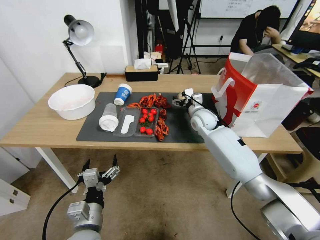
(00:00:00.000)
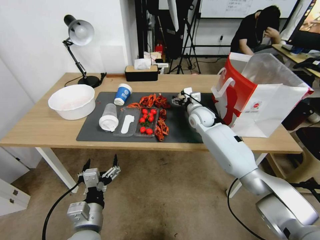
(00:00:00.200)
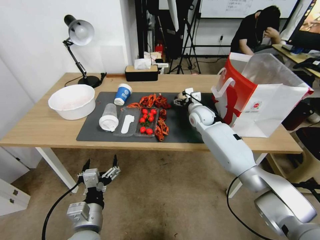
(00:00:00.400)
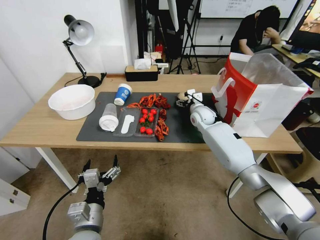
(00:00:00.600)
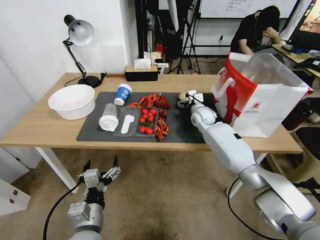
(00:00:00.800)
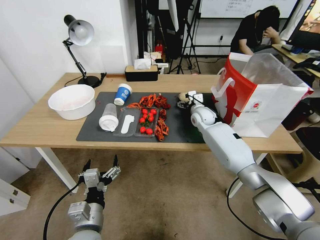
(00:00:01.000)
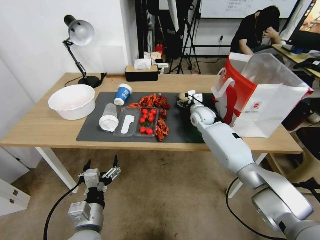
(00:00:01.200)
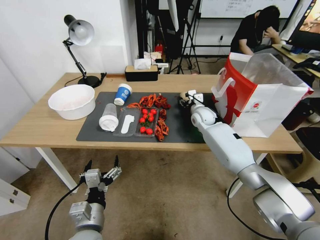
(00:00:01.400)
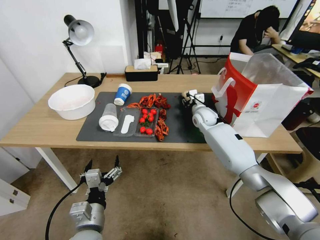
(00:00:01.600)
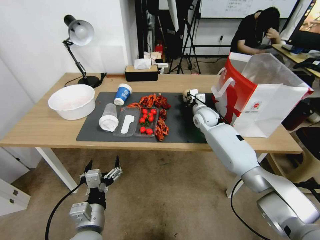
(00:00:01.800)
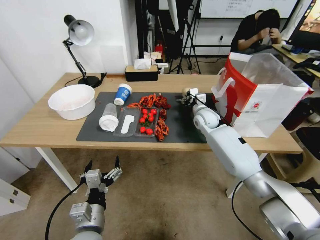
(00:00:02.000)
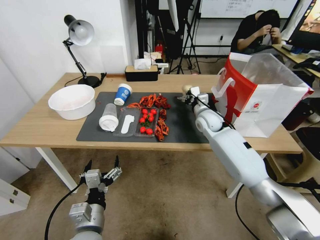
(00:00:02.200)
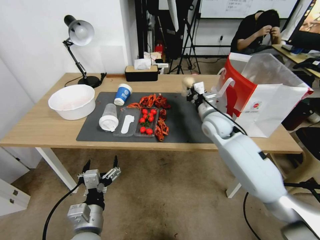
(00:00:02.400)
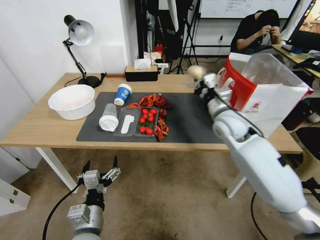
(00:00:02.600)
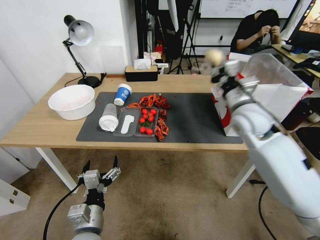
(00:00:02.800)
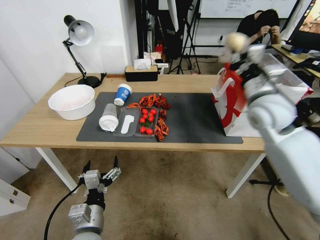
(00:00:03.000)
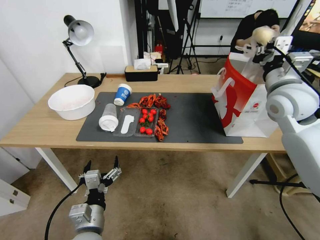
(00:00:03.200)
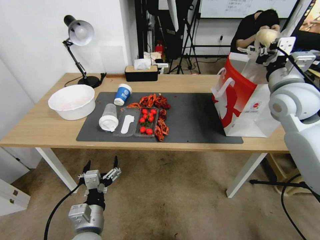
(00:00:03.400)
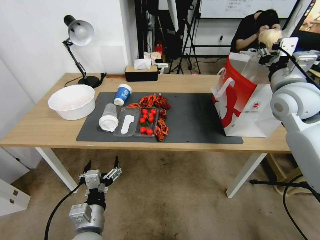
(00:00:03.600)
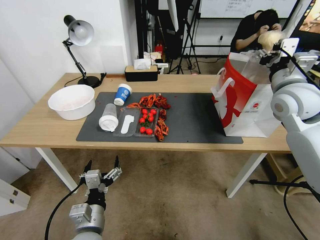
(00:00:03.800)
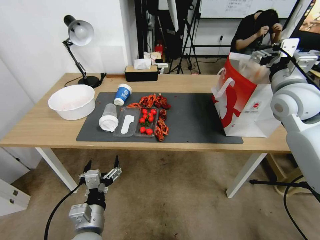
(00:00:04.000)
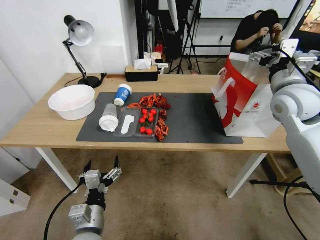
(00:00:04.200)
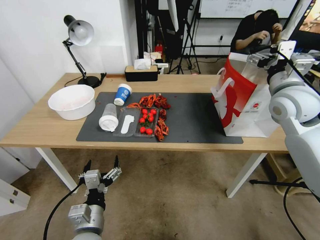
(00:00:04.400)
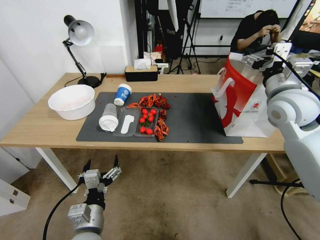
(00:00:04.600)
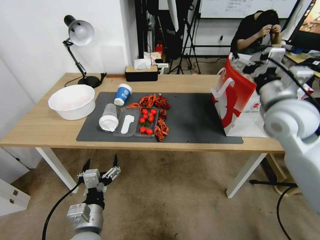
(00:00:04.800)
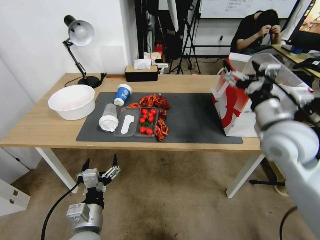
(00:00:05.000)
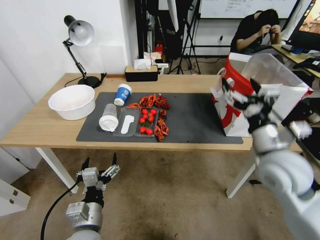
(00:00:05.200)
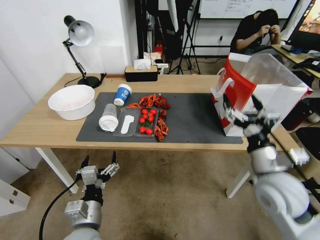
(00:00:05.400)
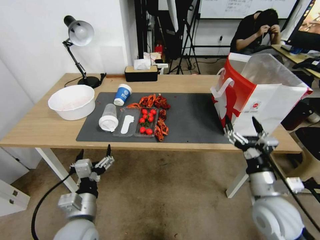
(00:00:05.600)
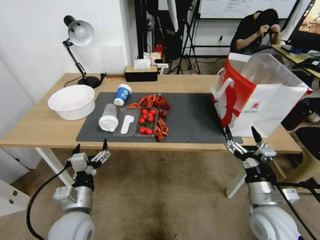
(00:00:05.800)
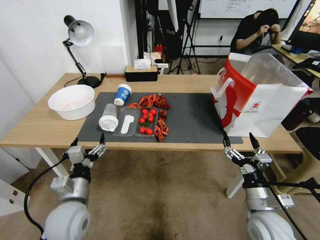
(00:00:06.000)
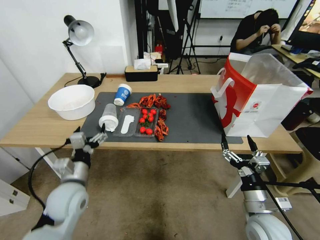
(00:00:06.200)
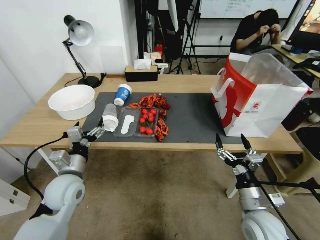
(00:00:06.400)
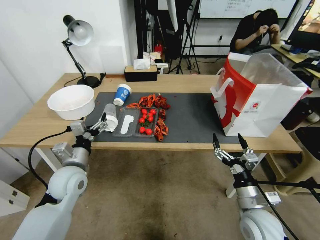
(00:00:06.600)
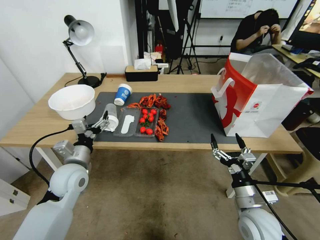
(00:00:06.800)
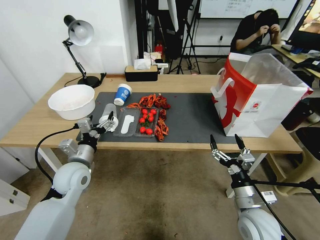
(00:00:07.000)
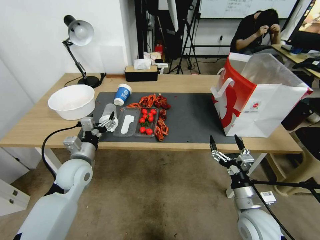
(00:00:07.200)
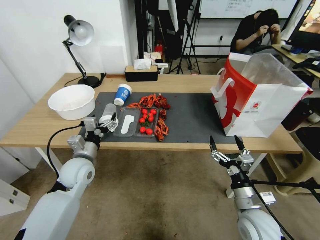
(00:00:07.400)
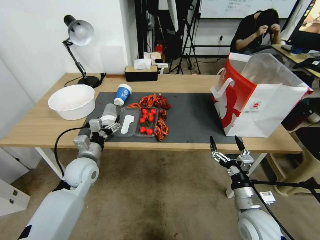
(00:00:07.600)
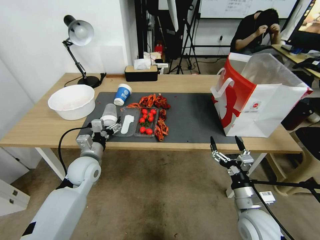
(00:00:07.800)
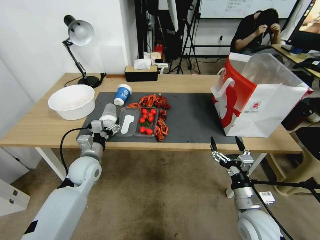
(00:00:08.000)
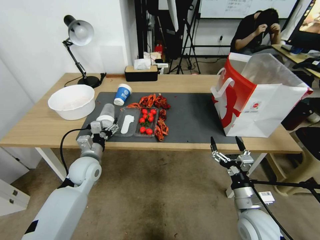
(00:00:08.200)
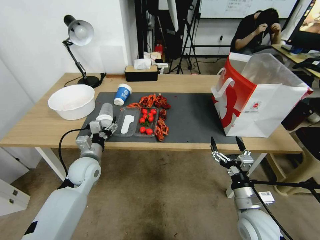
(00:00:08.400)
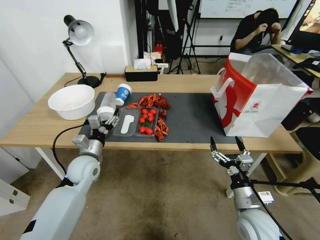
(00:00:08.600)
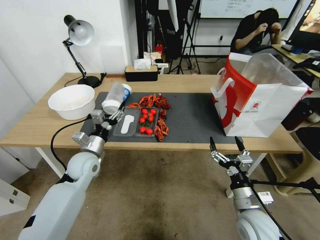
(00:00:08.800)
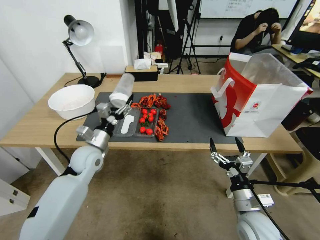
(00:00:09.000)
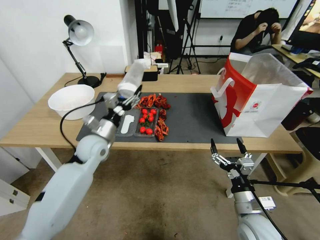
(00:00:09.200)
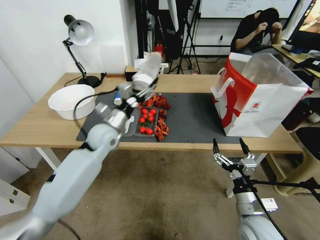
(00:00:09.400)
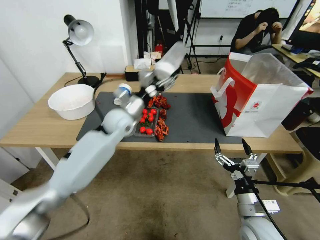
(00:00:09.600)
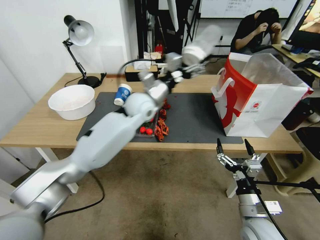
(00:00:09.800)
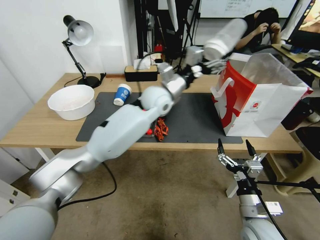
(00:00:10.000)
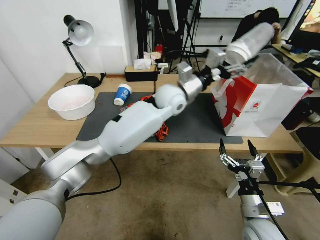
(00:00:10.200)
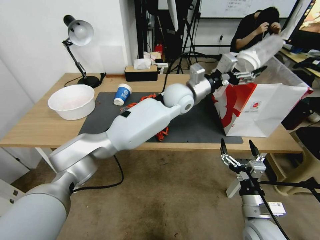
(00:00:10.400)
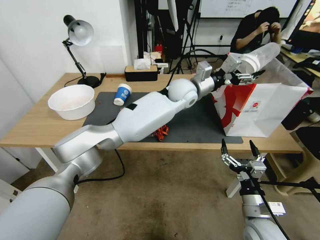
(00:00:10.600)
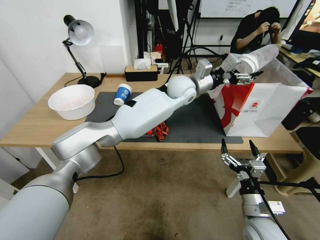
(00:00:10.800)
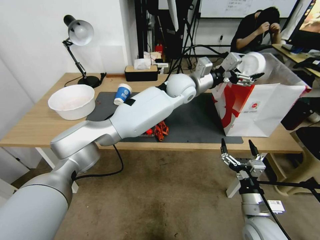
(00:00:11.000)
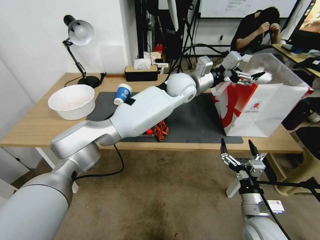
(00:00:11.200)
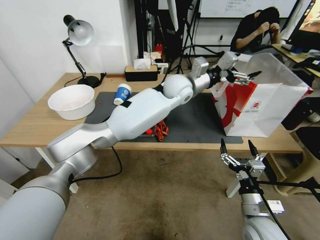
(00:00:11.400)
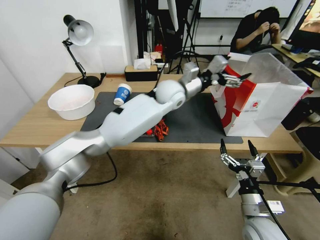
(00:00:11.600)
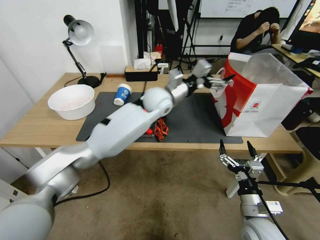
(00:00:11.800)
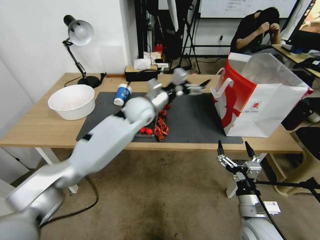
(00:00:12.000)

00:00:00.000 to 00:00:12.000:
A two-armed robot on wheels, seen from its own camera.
00:00:00.000 to 00:00:01.600: The right gripper closes.
00:00:01.600 to 00:00:03.000: The right gripper shifts approximately 30 cm upward, backward and to the right.
00:00:03.000 to 00:00:04.400: The right gripper goes about 5 cm to the right, and opens its fingers.
00:00:04.400 to 00:00:06.000: The right gripper shifts about 35 cm downward and backward, while the left gripper changes place by some 5 cm.
00:00:06.000 to 00:00:07.600: The left gripper travels forward by about 15 cm.
00:00:09.000 to 00:00:10.400: The left gripper heads to the right, upward and forward, covering roughly 40 cm.
00:00:10.400 to 00:00:12.000: The left gripper is displaced to the left by some 15 cm.

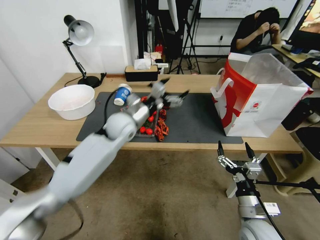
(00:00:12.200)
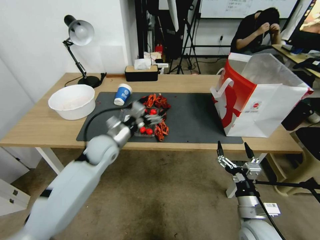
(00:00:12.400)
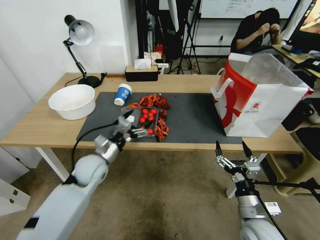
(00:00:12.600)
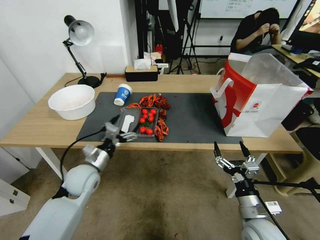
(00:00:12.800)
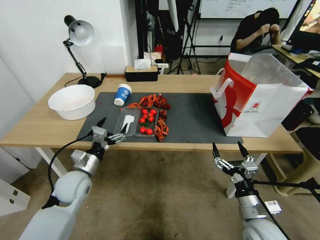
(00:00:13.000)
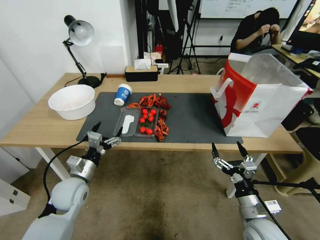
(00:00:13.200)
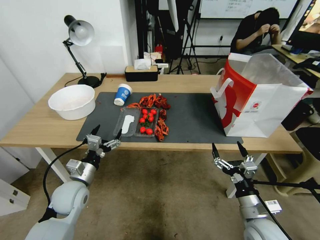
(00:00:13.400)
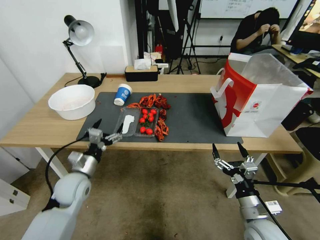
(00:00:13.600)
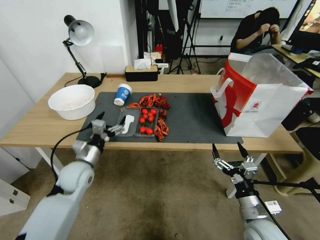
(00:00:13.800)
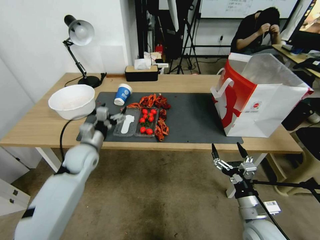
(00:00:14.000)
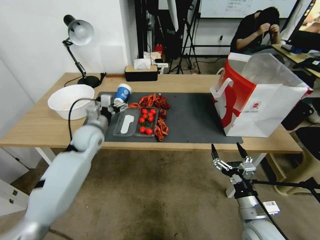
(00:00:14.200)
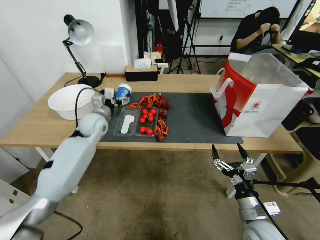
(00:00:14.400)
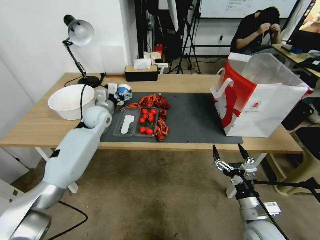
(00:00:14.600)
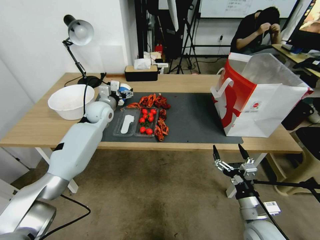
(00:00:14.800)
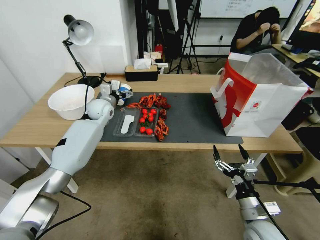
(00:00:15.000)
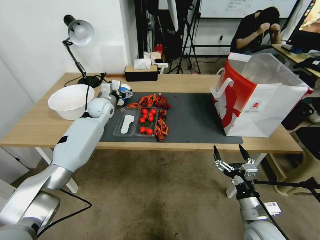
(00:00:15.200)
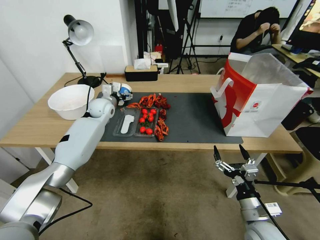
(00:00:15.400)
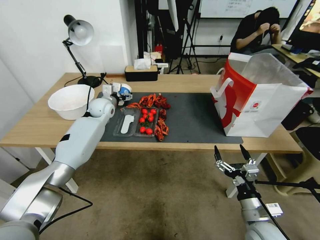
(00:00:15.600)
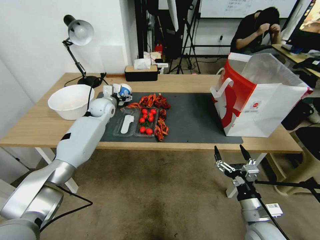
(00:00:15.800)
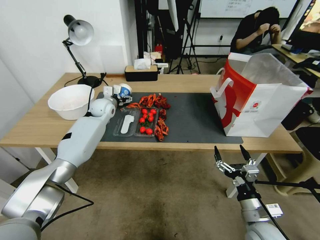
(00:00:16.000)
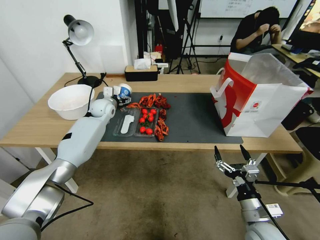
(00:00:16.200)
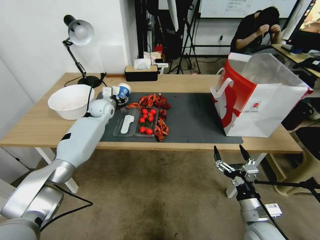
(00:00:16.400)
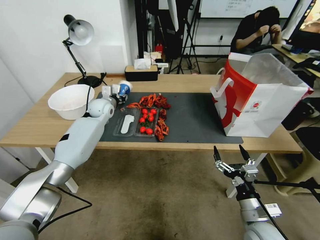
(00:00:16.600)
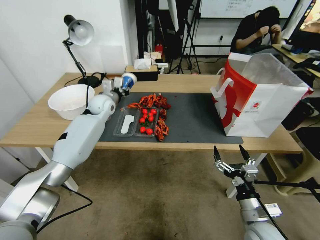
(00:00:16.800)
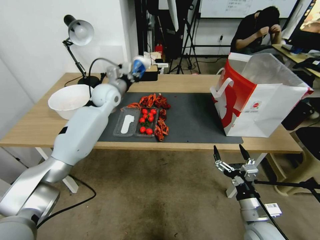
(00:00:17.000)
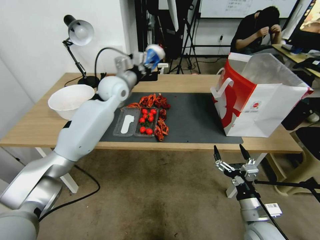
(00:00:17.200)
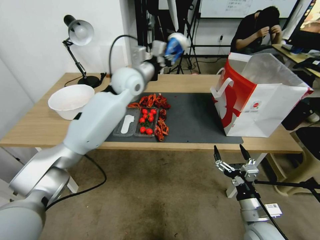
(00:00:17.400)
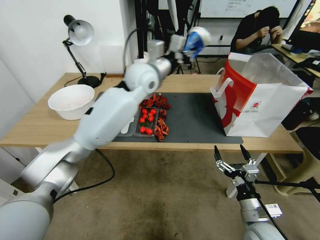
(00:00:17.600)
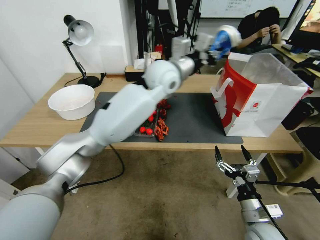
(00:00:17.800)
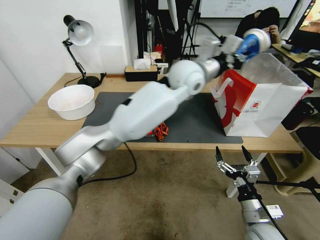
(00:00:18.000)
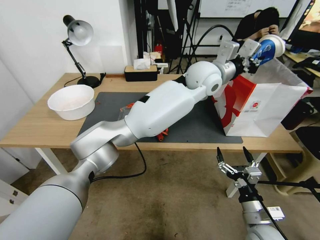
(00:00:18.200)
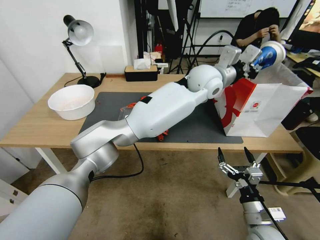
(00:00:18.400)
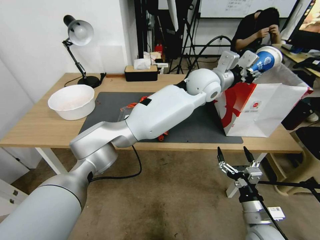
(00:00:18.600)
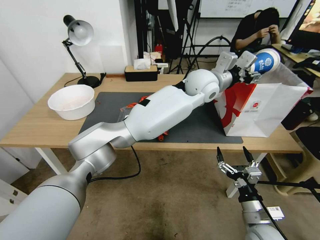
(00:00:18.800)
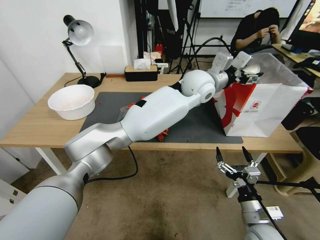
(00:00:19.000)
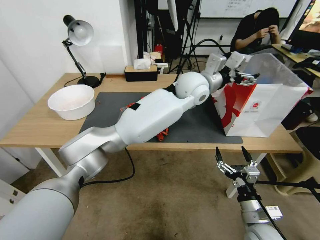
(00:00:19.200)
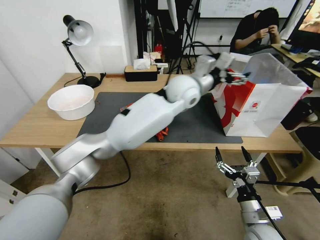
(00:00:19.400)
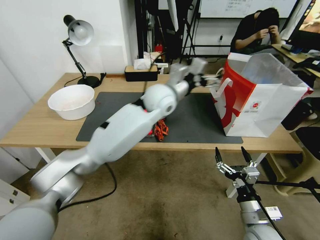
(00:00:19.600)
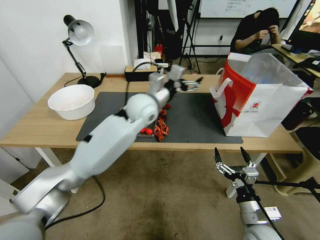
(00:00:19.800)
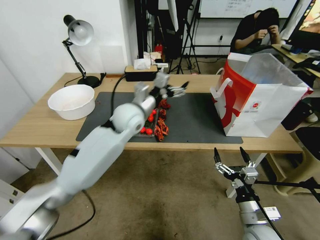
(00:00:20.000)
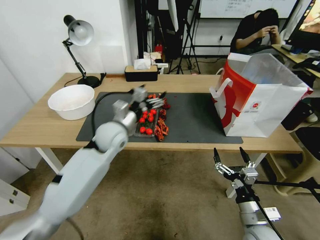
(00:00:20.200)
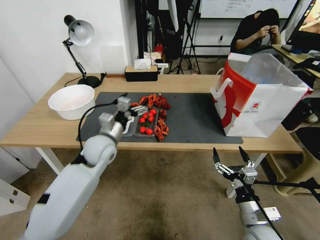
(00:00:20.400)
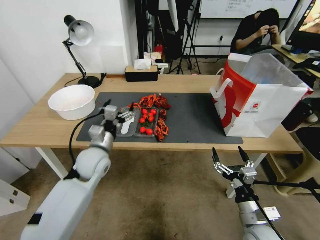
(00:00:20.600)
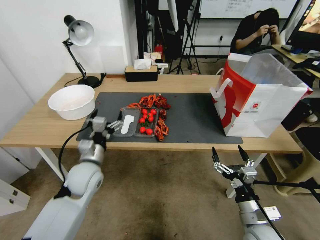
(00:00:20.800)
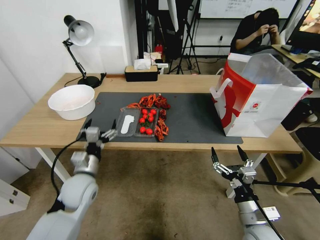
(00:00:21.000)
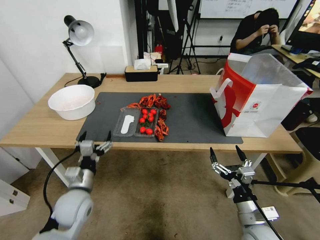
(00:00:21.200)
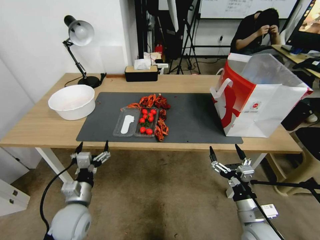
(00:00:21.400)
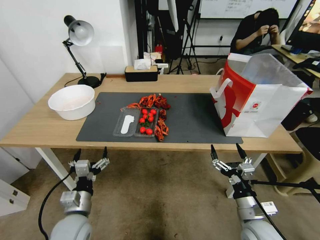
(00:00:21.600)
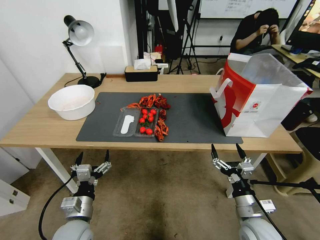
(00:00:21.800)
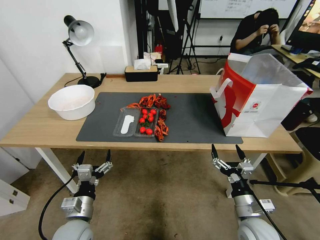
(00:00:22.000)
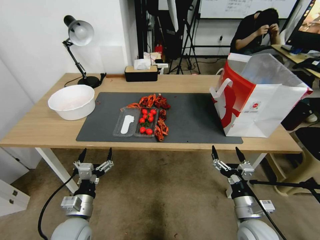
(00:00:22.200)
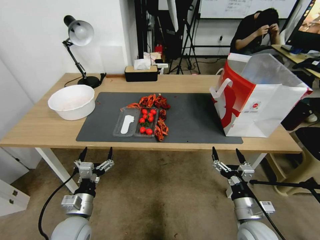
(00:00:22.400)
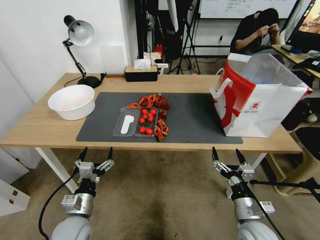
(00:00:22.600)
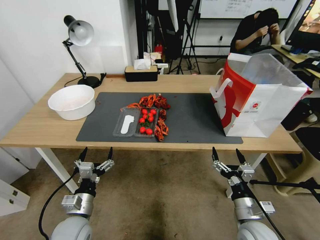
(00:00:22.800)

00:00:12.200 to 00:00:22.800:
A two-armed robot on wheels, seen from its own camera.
00:00:12.200 to 00:00:13.800: The left gripper moves to the left, backward and downward, about 20 cm.
00:00:13.800 to 00:00:15.200: The left gripper is displaced forward by approximately 25 cm.
00:00:15.200 to 00:00:16.800: The left gripper closes.
00:00:16.800 to 00:00:18.200: The left gripper travels to the right and upward by approximately 40 cm.
00:00:18.200 to 00:00:19.800: The left gripper is displaced to the left and downward by roughly 20 cm, and opens its fingers.
00:00:19.800 to 00:00:21.200: The left gripper heads backward, to the left and downward, covering approximately 35 cm.
00:00:21.200 to 00:00:22.800: The left gripper goes approximately 5 cm backward.
